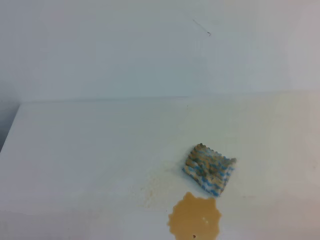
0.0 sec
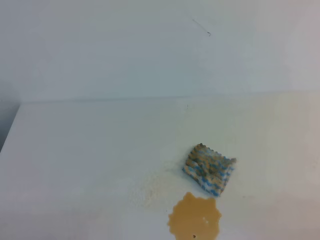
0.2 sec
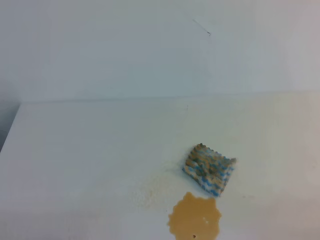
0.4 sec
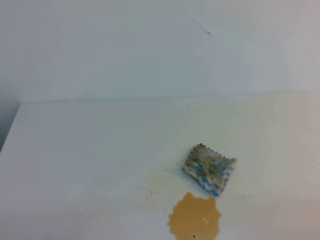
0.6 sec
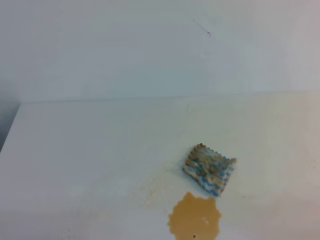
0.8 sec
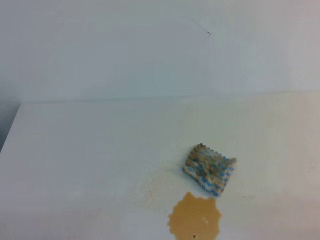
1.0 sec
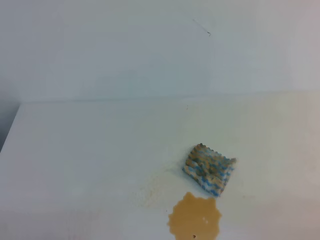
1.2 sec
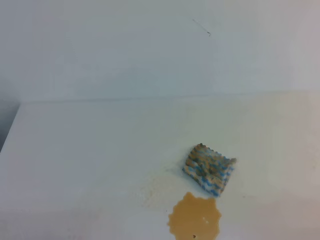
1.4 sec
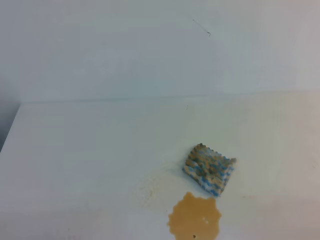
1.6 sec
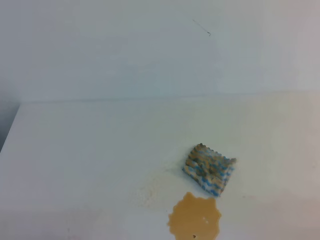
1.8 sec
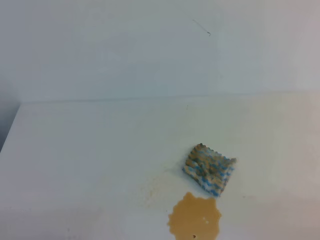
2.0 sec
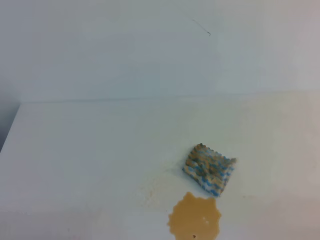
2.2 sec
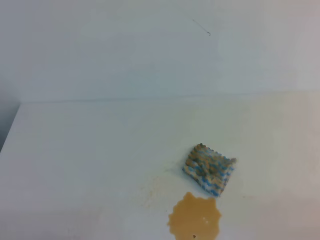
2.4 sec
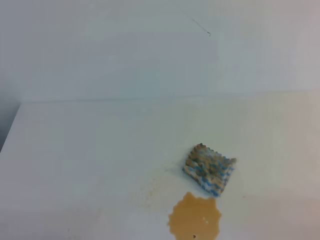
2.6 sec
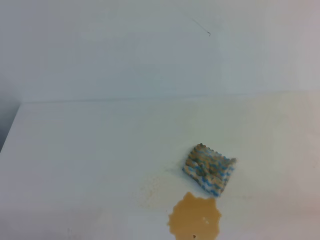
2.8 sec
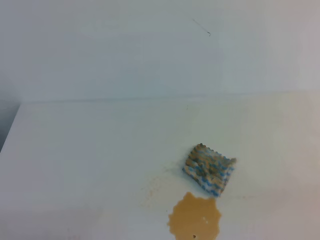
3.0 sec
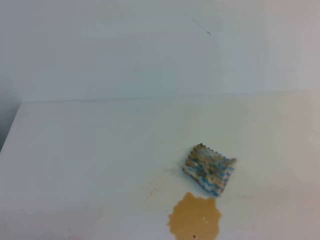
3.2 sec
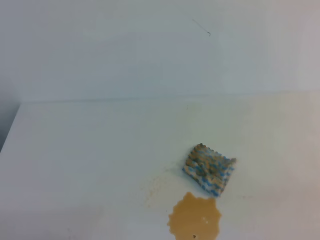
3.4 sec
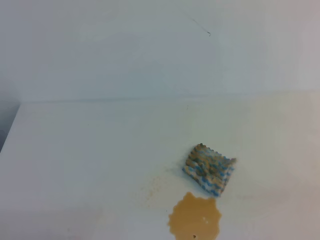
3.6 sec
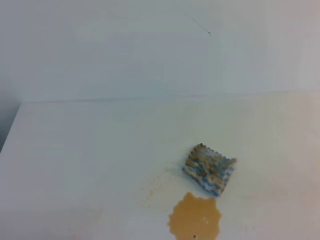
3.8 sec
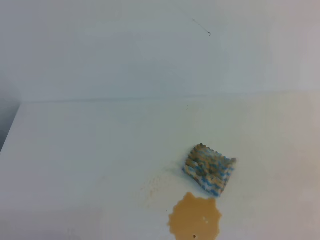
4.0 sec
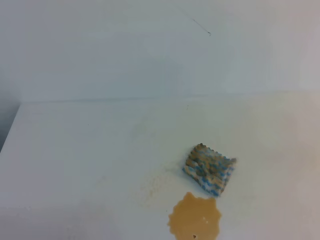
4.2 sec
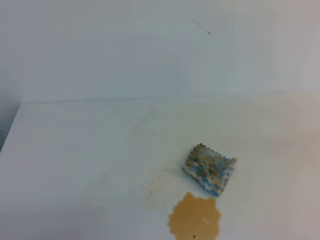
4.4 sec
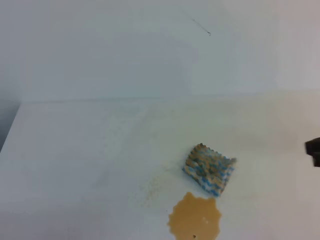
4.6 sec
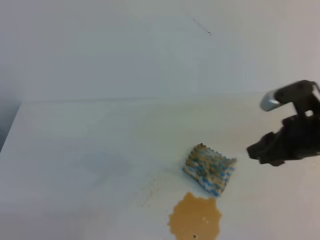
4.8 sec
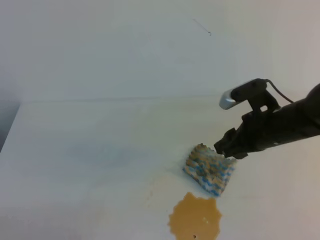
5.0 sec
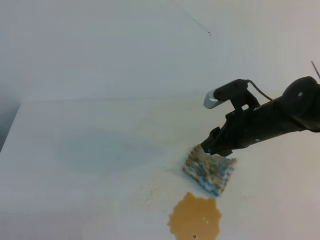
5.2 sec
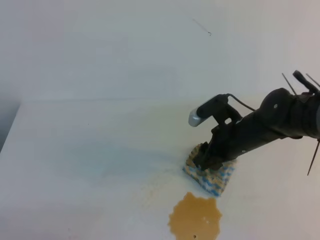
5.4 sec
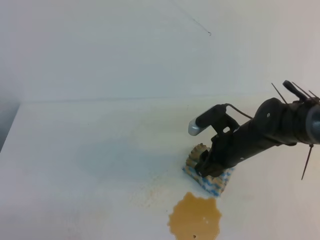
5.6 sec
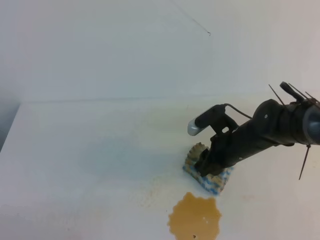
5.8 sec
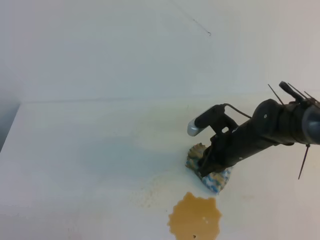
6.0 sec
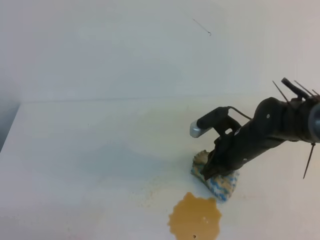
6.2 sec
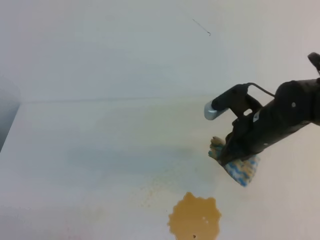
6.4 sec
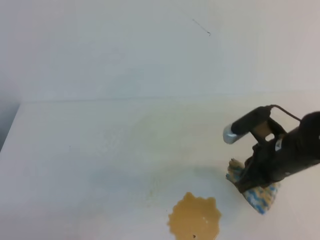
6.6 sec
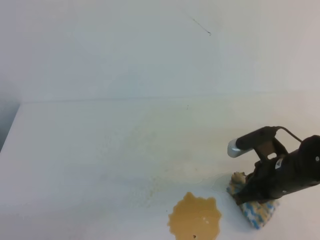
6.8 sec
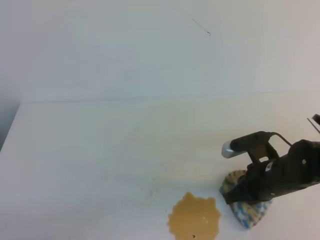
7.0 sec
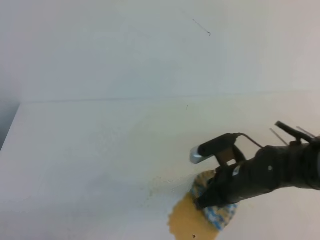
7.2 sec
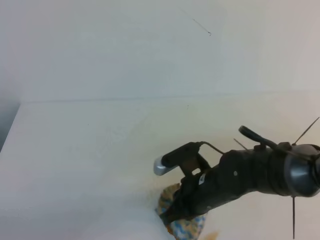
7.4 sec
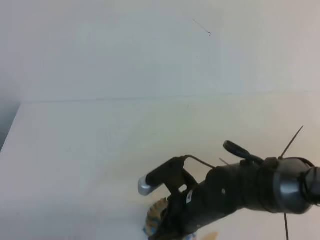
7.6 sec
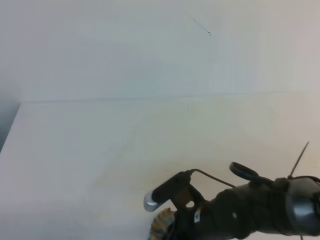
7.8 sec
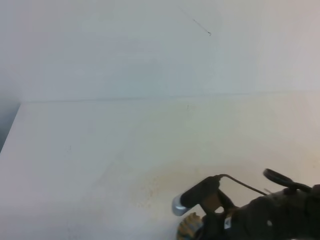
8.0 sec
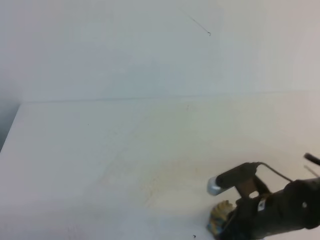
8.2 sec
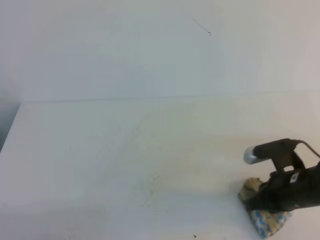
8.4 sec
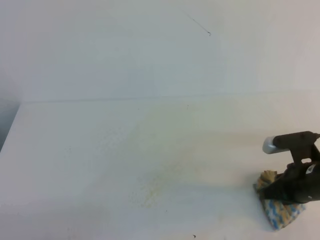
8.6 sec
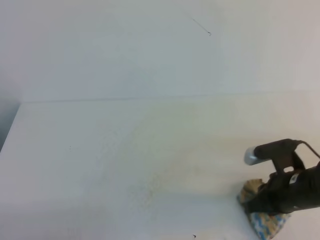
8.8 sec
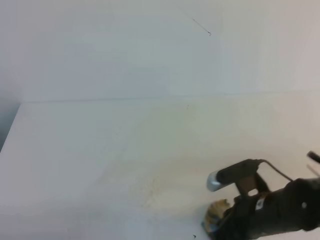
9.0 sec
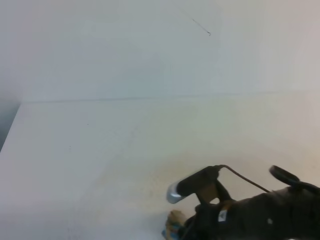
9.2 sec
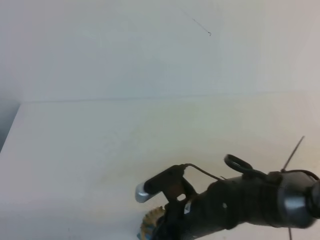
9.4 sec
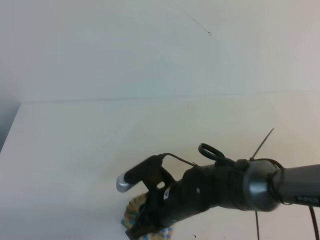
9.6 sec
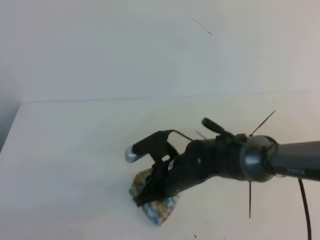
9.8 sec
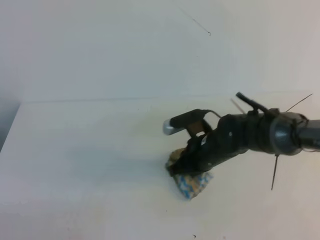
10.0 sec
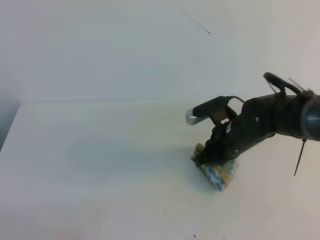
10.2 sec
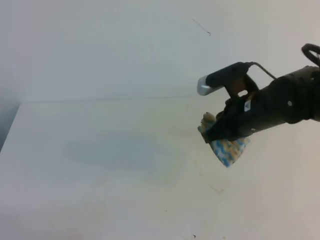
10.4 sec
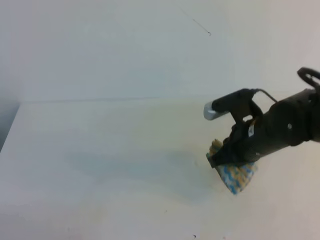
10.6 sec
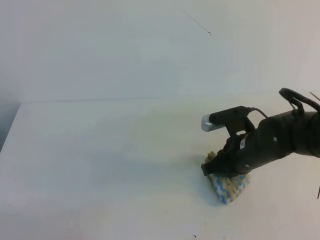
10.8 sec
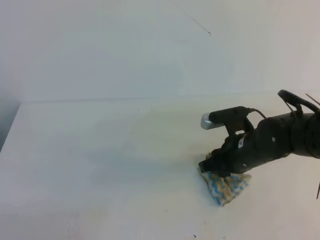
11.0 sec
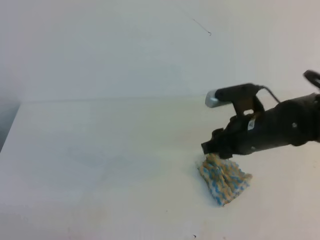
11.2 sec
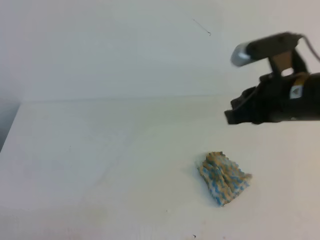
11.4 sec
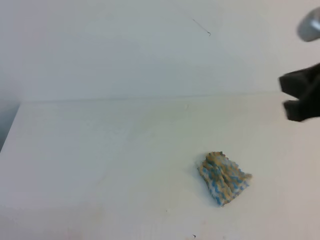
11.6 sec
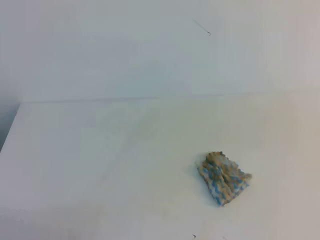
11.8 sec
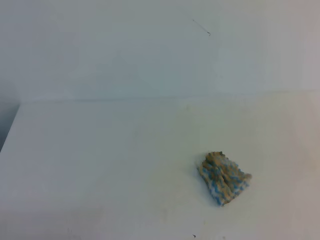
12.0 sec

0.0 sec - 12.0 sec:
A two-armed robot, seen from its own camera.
0.0 sec - 1.6 sec: The two grippers keep their place.
4.4 sec - 6.0 sec: The right gripper heads forward, to the left and downward, covering about 30 cm, and opens, then closes again.
6.0 sec - 7.6 sec: The right gripper shifts roughly 15 cm backward and to the left.
7.6 sec - 9.0 sec: The right gripper goes roughly 10 cm to the right.
9.0 sec - 10.4 sec: The right gripper goes approximately 15 cm forward and upward.
10.4 sec - 12.0 sec: The right gripper shifts approximately 30 cm backward, to the right and upward, and opens, then closes again.

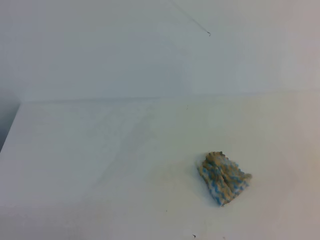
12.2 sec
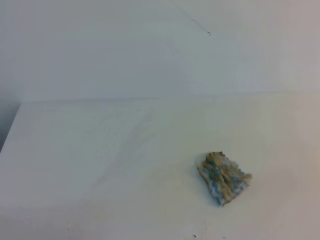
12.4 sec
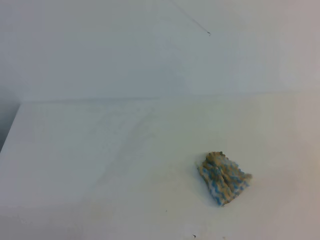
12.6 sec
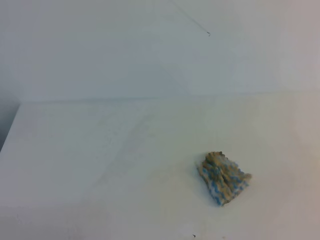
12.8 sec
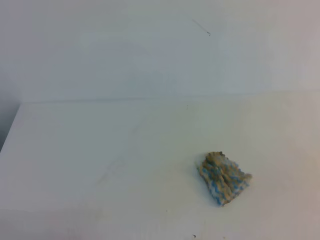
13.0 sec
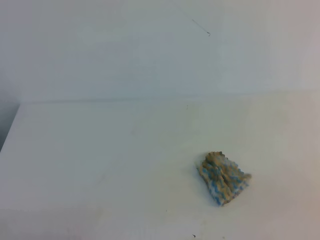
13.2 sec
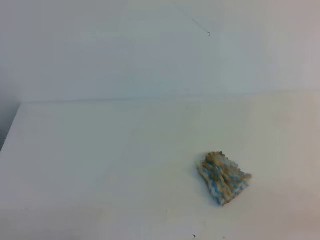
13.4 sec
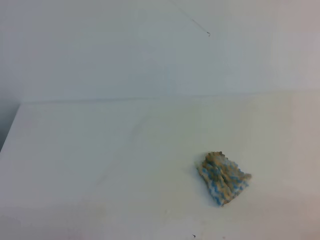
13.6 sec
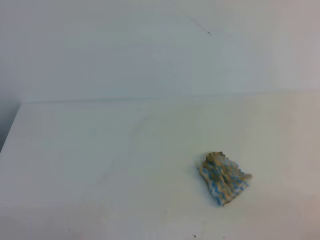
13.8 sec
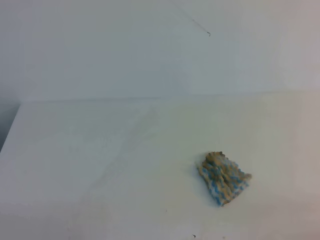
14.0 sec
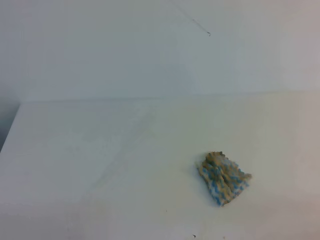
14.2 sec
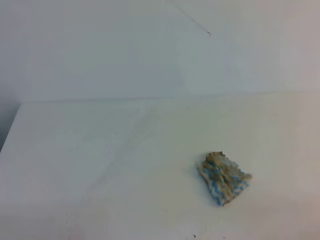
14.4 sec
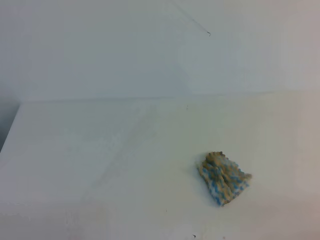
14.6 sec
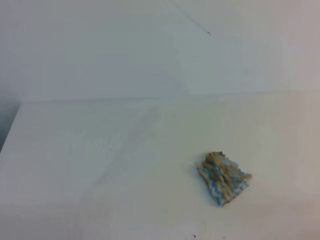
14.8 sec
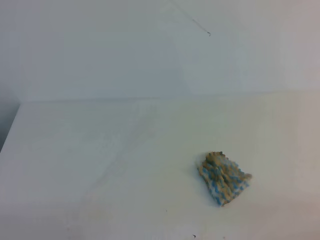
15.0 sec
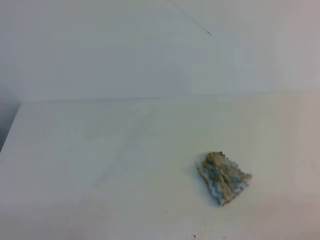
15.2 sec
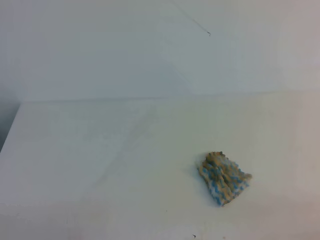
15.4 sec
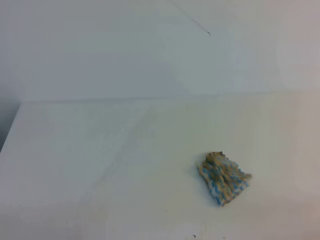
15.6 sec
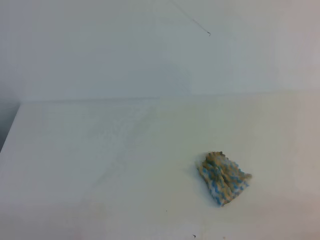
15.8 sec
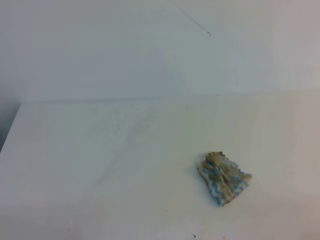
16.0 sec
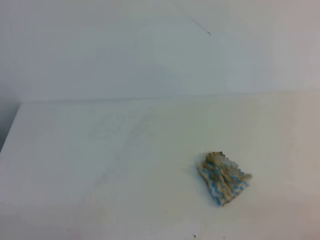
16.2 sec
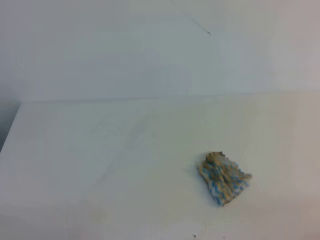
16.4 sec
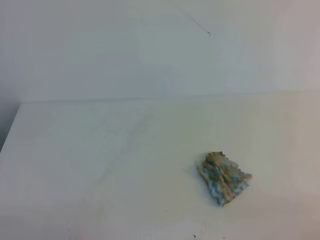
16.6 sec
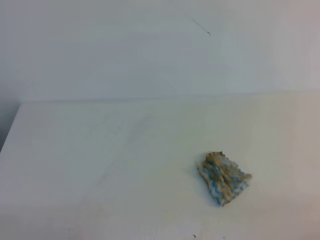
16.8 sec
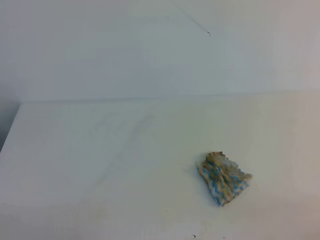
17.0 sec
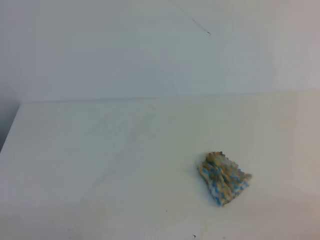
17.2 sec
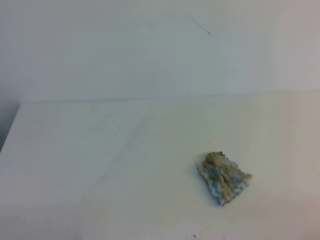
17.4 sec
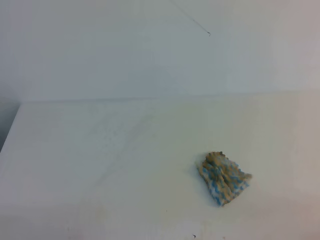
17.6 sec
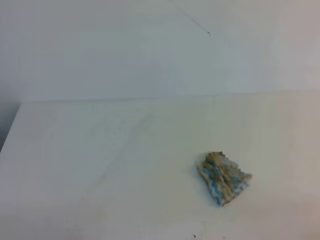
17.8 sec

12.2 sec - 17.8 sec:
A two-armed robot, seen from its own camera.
13.6 sec - 17.8 sec: Both grippers stay put.
